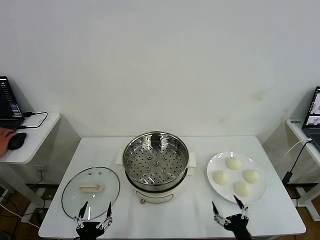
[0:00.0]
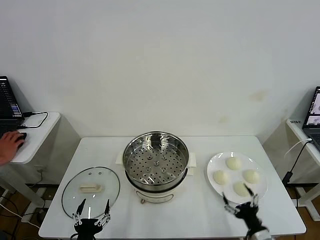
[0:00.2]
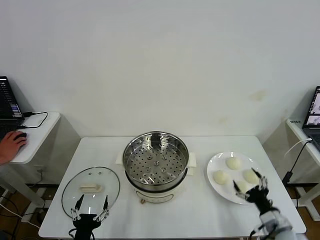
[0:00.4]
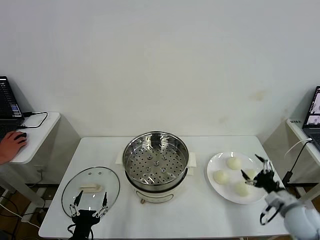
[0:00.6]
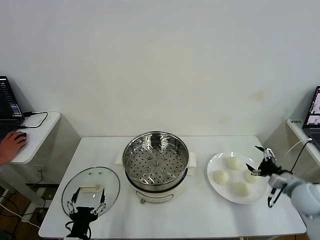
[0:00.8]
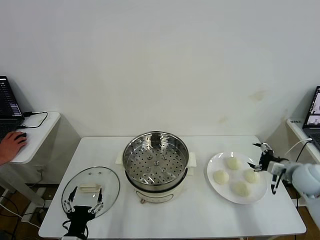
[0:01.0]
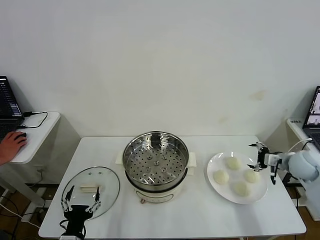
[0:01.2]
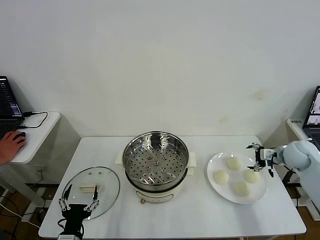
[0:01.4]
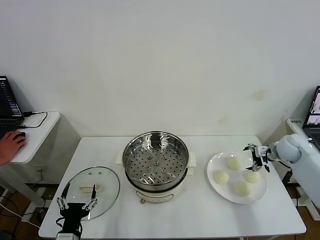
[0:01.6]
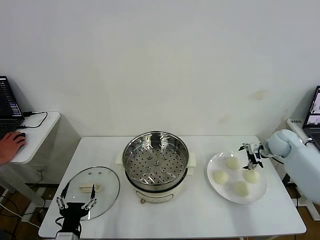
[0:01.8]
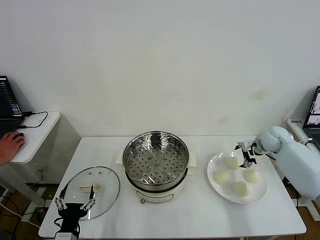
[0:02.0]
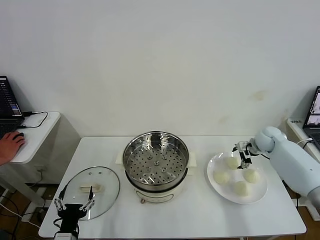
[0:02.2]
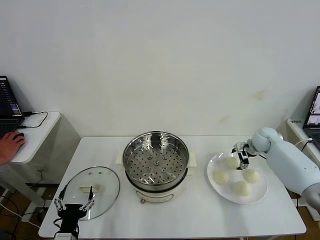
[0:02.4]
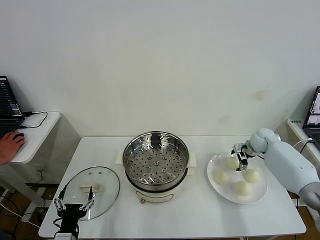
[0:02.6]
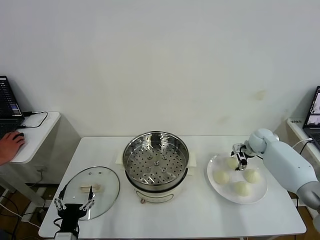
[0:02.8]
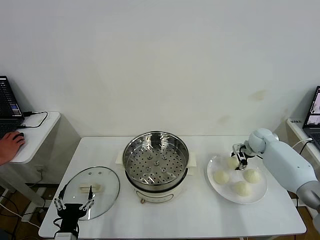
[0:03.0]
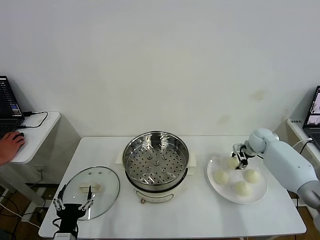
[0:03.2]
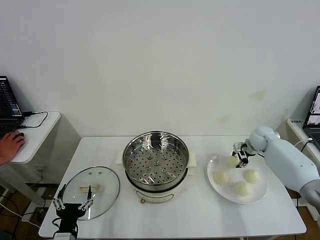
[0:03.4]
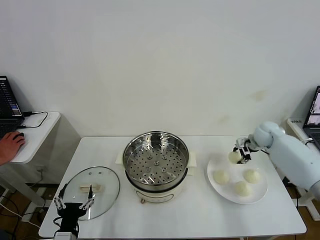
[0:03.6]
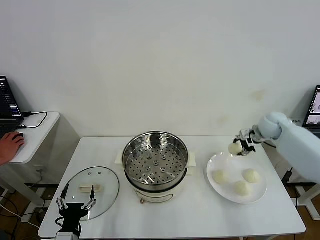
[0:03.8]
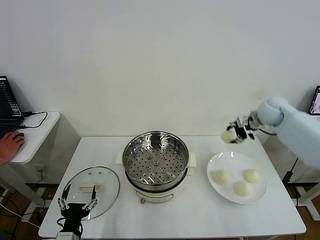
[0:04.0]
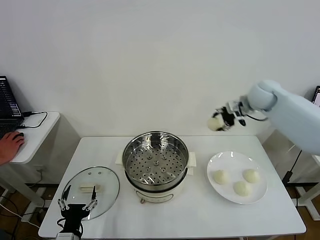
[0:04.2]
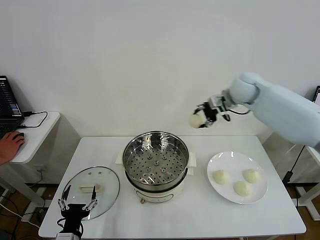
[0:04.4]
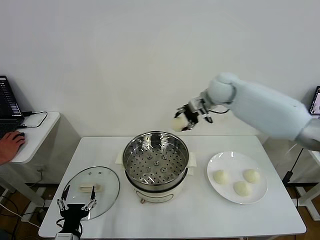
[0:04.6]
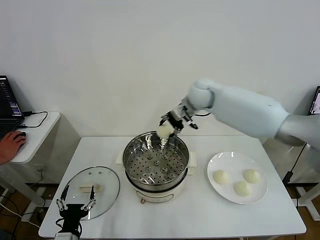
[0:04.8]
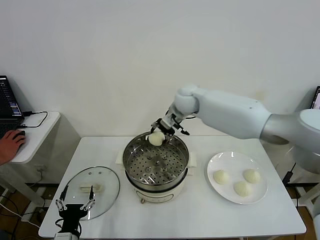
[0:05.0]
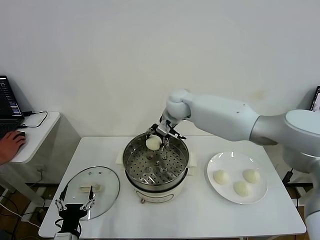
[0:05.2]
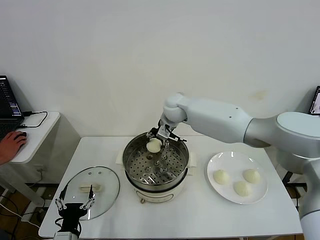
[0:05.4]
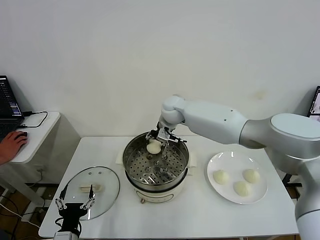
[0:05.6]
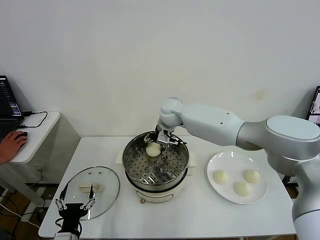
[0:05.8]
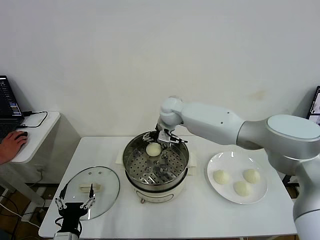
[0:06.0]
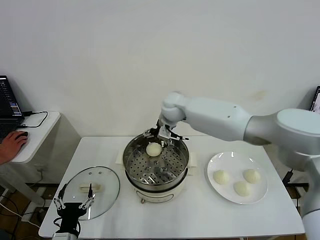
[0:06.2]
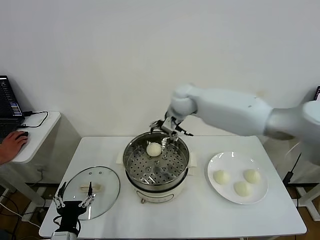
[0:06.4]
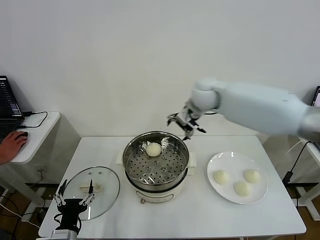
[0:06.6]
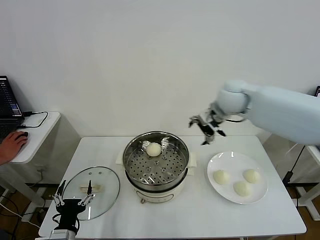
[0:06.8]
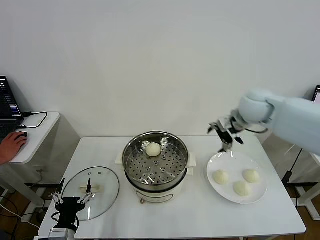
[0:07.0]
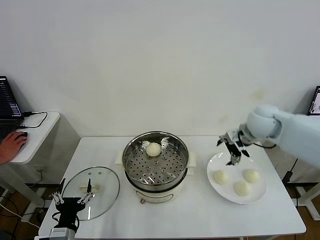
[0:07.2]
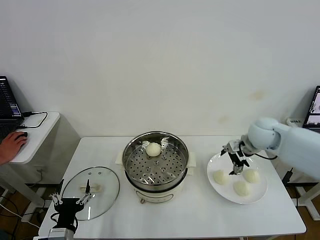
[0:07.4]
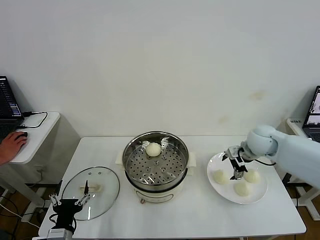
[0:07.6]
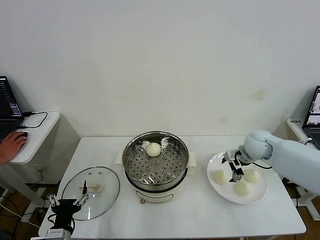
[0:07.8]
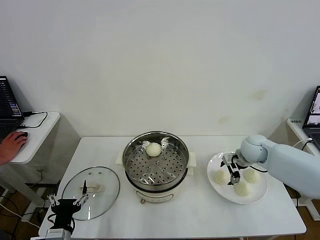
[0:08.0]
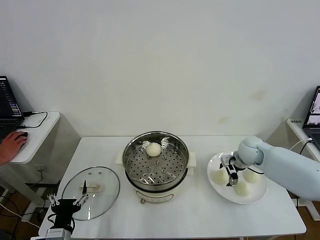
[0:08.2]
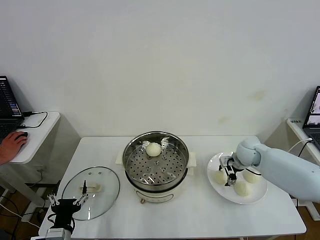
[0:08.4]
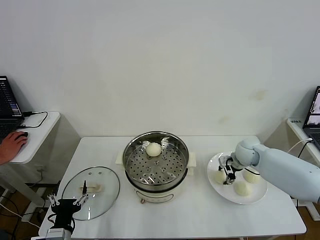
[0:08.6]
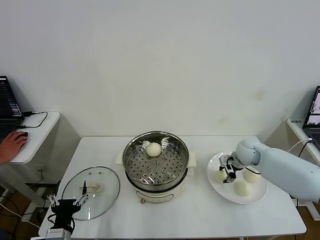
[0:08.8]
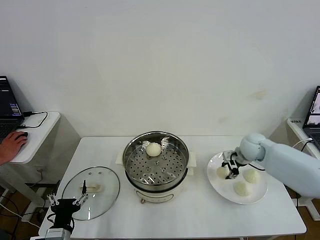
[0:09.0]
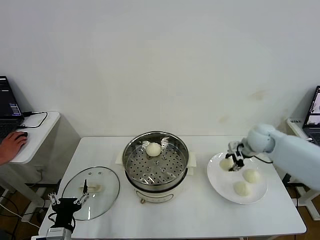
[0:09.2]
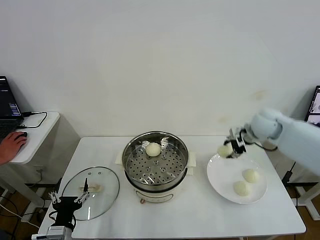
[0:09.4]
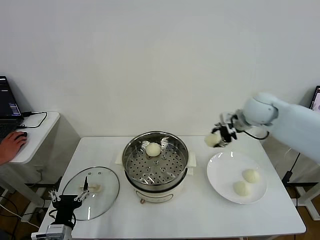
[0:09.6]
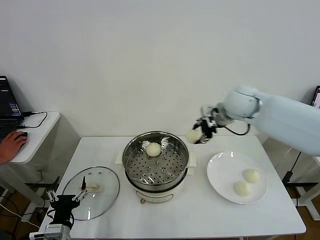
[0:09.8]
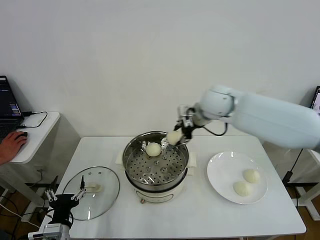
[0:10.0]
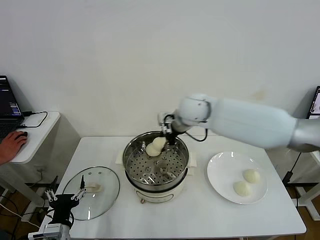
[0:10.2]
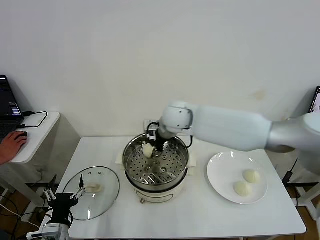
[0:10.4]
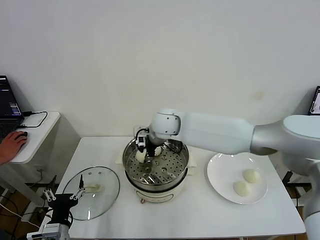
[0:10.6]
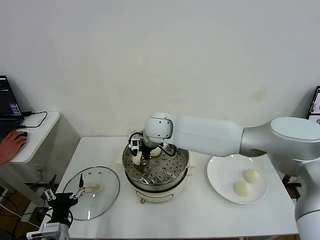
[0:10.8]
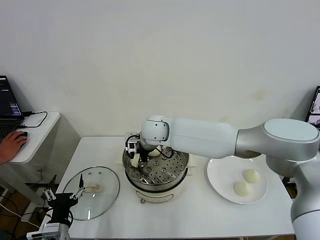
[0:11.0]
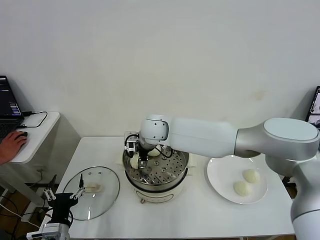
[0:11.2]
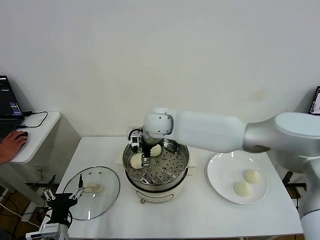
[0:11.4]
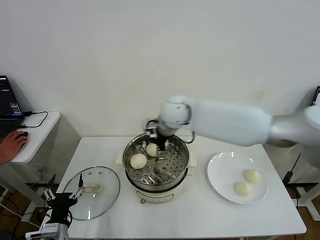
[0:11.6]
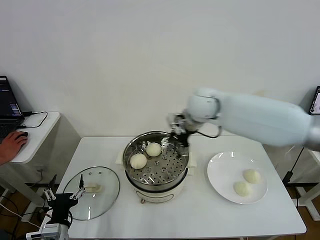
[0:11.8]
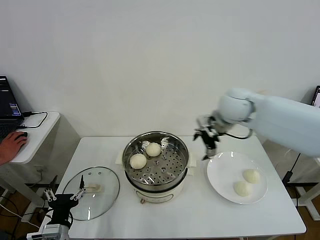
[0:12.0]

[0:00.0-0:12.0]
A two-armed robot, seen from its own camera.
Task of the whole recording: take steamed baozi put them in steamer then cover it.
Step, 0.0 to 3.0 s: Grasp the baozi in the plate with right gripper.
Step, 3.2 to 5.8 s: Place the baozi on the steamer with right gripper.
Step, 6.2 to 8.8 s: Grasp the baozi in the plate with right gripper.
Step, 9.0 to 11.2 s: Place the baozi on the steamer with right gripper.
1.6 to 3.0 s: The right gripper goes roughly 5 cm forward, and closes up.
3.0 to 4.4 s: The right gripper travels upward and to the left by about 30 cm.
4.4 to 6.0 s: The right gripper shifts approximately 20 cm to the left and downward, and opens.
6.0 to 7.6 s: The right gripper shifts roughly 30 cm to the right.
7.6 to 9.0 s: The right gripper closes up.
9.0 to 10.4 s: The right gripper heads to the left, covering about 30 cm.
10.4 to 12.0 s: The right gripper heads to the right, covering about 20 cm, and opens its fingers.

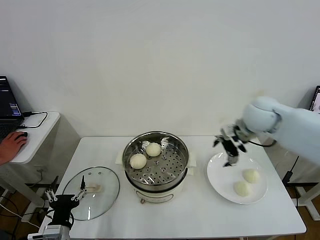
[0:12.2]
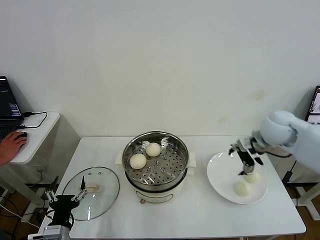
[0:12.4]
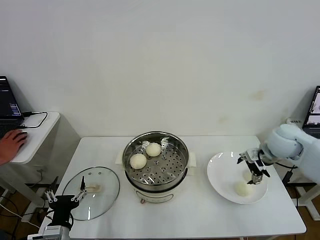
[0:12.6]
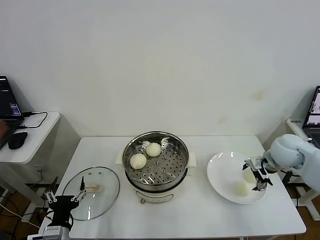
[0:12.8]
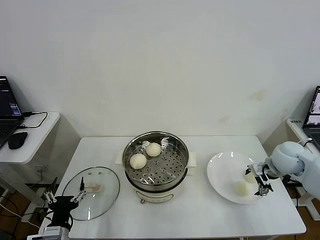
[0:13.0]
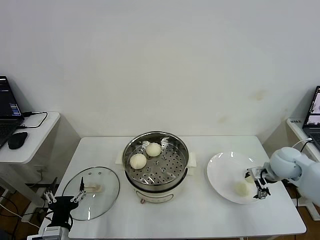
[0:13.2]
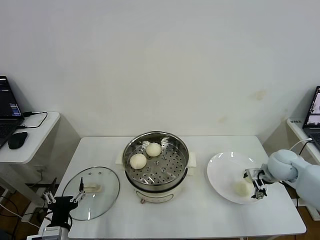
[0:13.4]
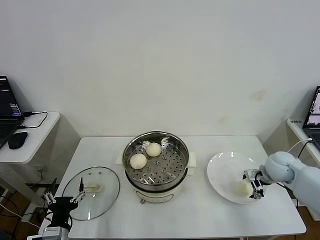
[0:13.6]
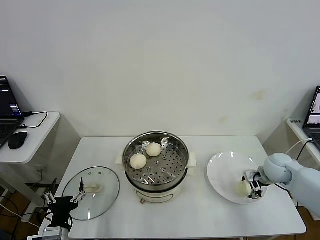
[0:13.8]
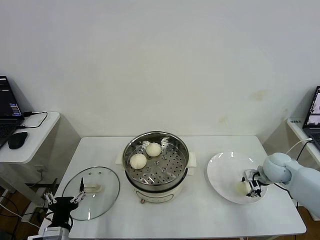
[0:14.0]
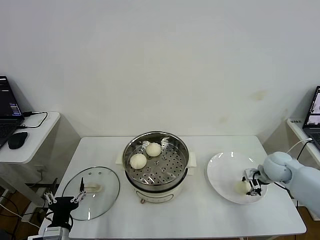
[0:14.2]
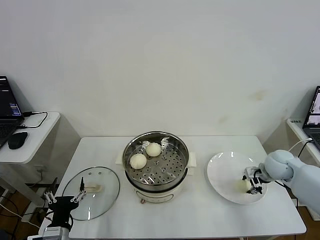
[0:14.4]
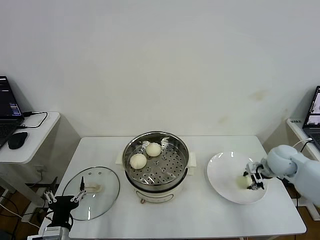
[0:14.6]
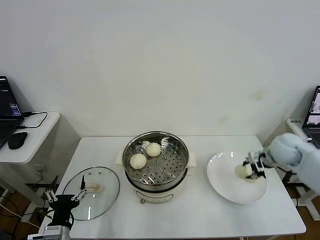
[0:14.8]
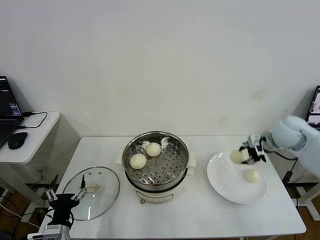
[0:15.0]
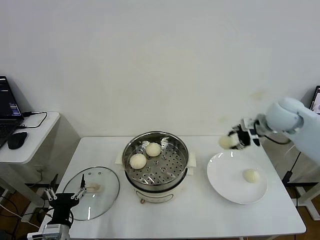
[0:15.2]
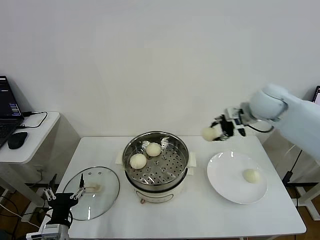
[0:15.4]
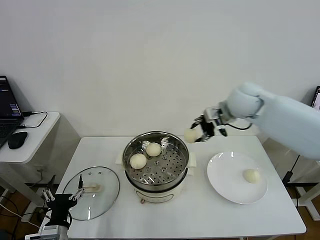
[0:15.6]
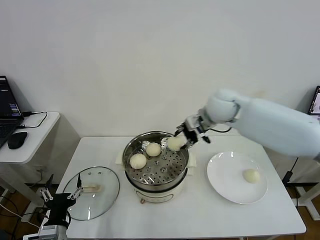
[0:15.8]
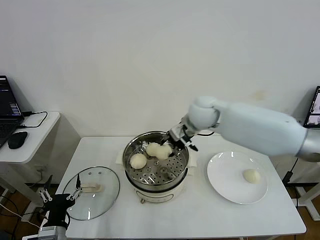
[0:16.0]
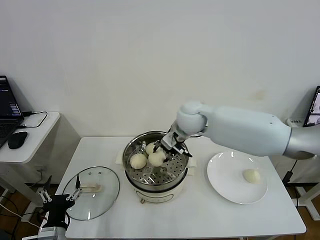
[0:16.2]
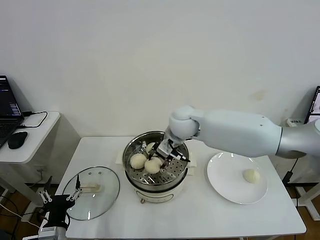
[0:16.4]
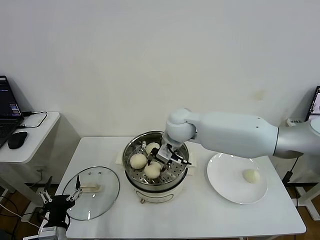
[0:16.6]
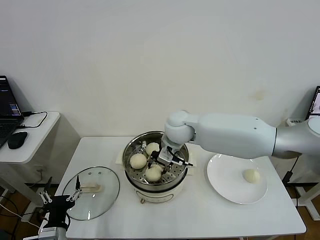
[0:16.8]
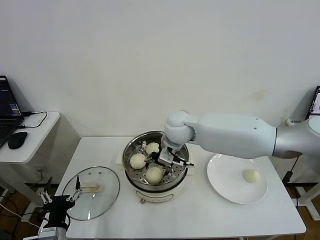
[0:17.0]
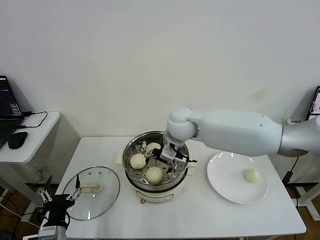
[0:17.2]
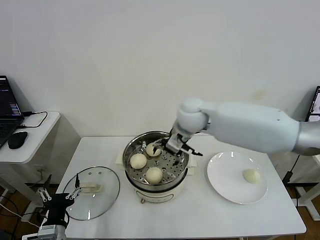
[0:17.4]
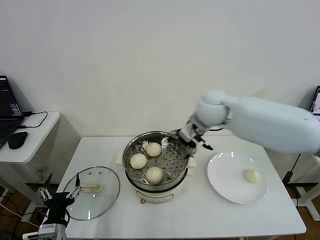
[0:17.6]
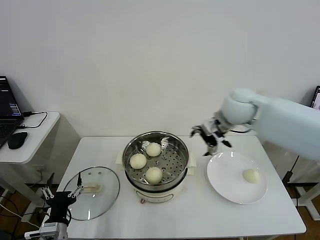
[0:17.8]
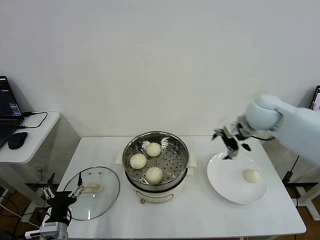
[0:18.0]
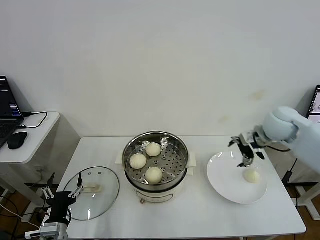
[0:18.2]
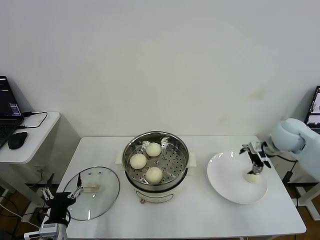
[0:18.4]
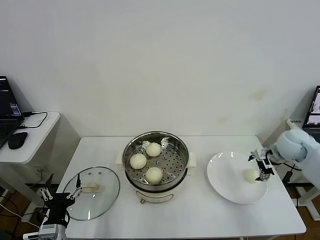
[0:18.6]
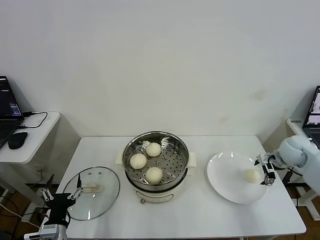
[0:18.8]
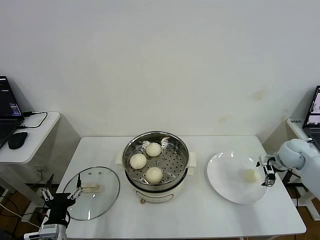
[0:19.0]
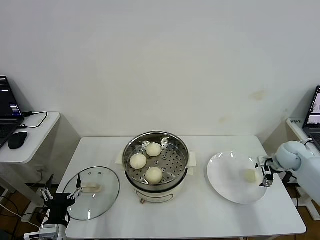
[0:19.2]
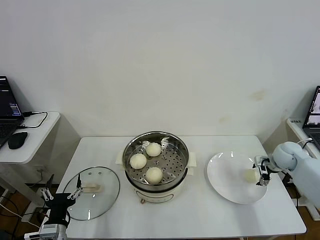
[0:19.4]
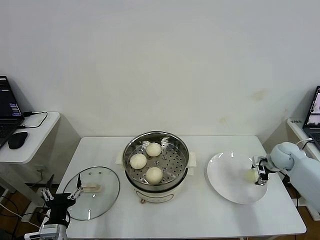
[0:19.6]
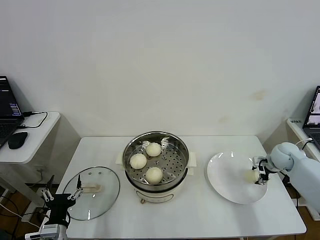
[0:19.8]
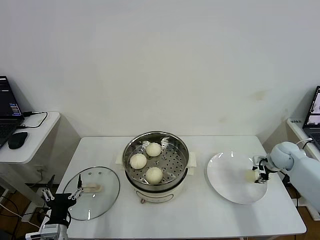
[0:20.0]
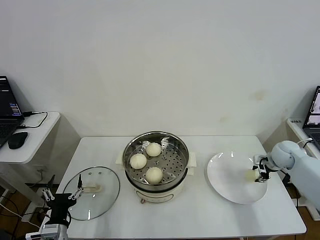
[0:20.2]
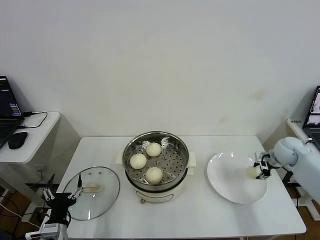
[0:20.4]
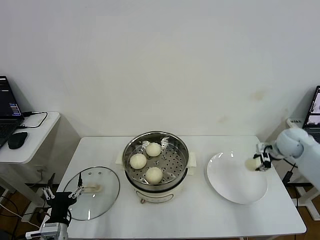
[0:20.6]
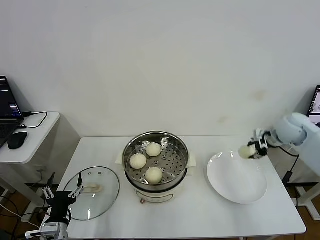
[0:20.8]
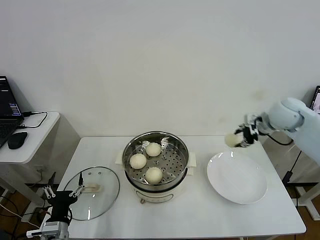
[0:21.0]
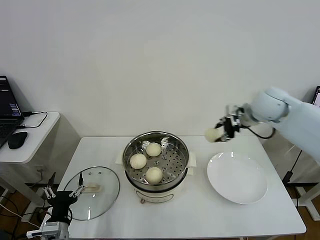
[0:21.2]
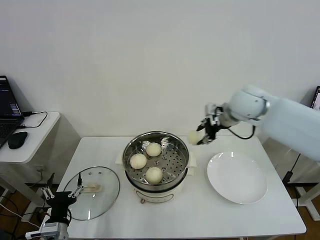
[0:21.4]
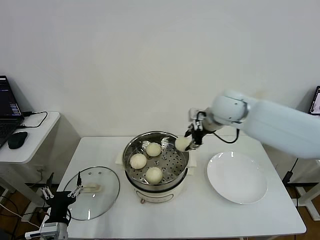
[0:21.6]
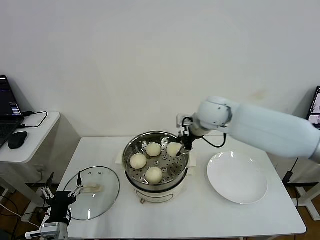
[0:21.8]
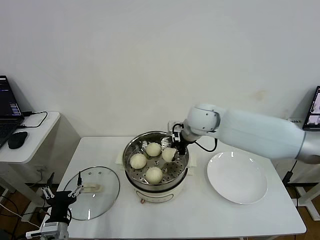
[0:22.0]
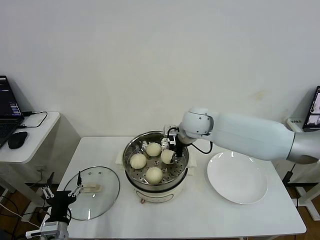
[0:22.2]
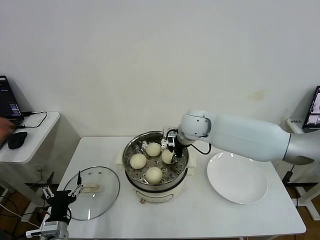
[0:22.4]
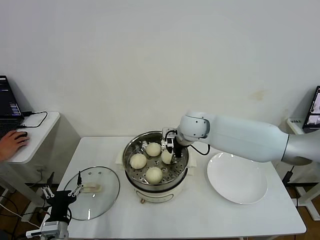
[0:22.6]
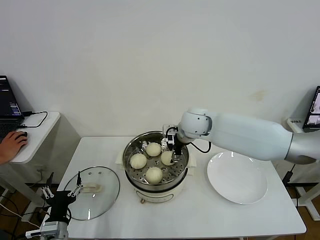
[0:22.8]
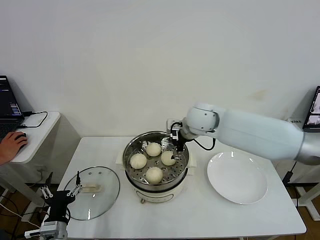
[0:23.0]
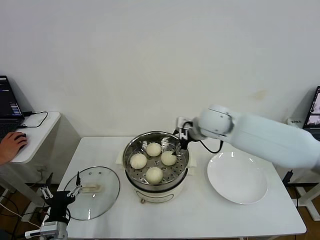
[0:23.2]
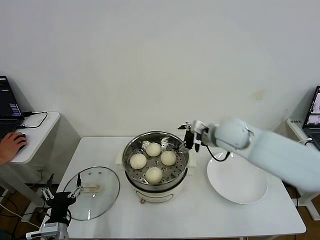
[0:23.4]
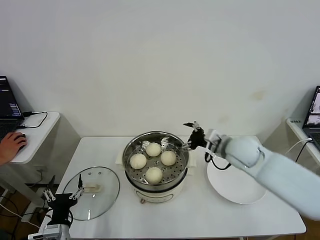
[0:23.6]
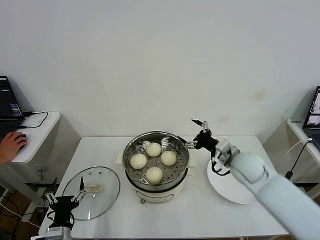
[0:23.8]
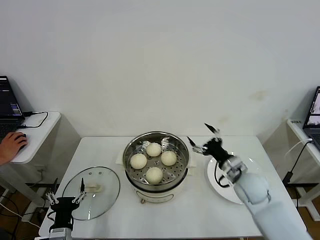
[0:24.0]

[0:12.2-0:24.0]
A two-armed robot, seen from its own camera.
Task of the whole recording: take steamed baozi put them in steamer then cover it.
Step, 12.2 to 14.2 s: Grasp the baozi in the plate with right gripper.
Step, 14.4 to 17.2 s: Place the baozi on the steamer with right gripper.
Step, 17.4 to 20.0 s: Grasp the baozi in the plate with right gripper.
Step, 20.2 to 22.8 s: Place the baozi on the steamer with right gripper.
12.2 to 13.6 s: The right gripper is displaced downward and to the right by about 20 cm.
13.6 to 15.2 s: The right gripper travels upward by some 20 cm, and closes its fingers.
15.2 to 16.6 s: The right gripper goes approximately 30 cm to the left.
16.6 to 18.2 s: The right gripper shifts some 30 cm to the right, and opens its fingers.
18.2 to 19.6 s: The right gripper heads downward and to the right, covering about 20 cm.
19.6 to 21.0 s: The right gripper is displaced upward and to the left by about 20 cm, and closes.
21.0 to 22.6 s: The right gripper goes approximately 25 cm to the left.
22.6 to 24.0 s: The right gripper shifts some 25 cm to the right, backward and downward, and opens.
